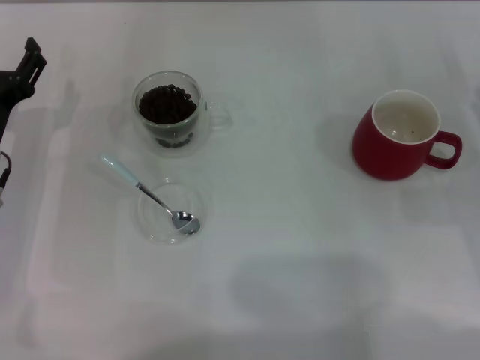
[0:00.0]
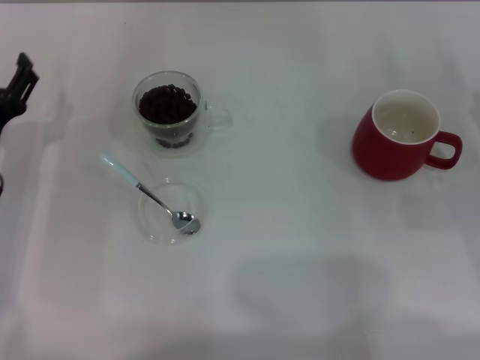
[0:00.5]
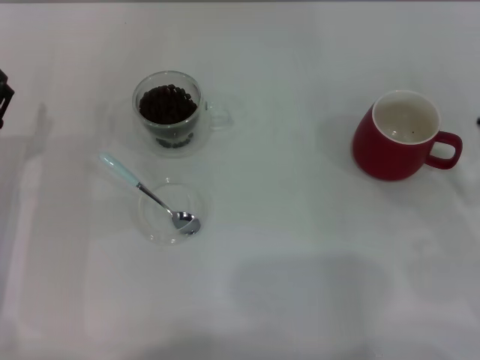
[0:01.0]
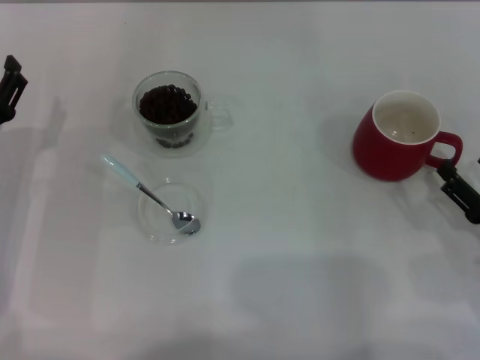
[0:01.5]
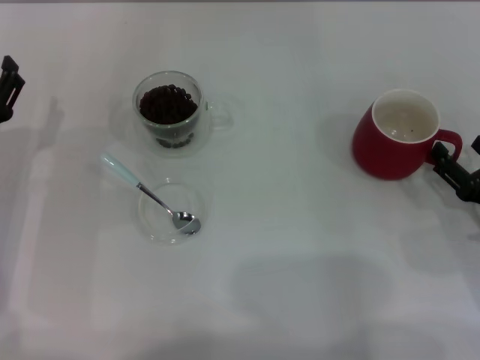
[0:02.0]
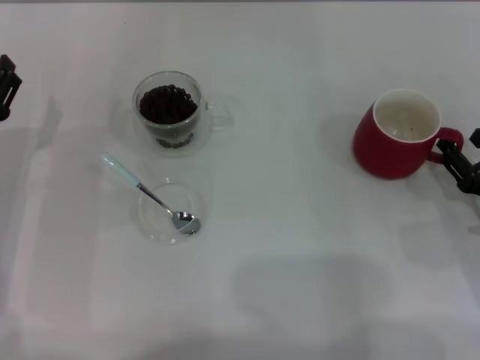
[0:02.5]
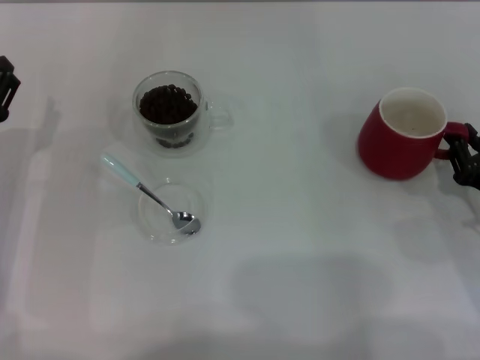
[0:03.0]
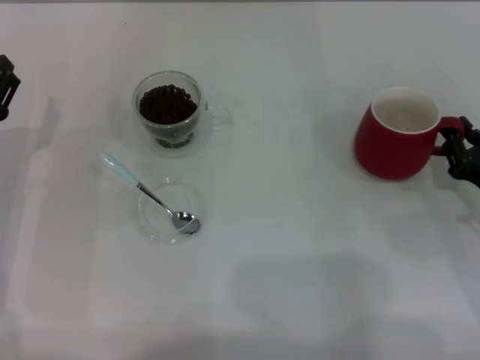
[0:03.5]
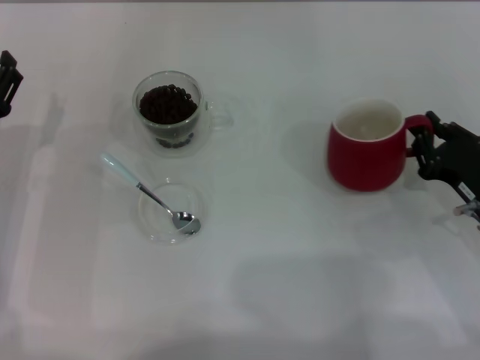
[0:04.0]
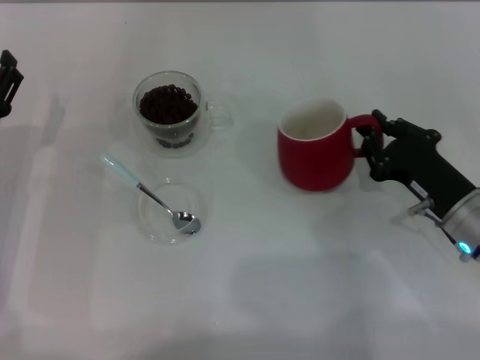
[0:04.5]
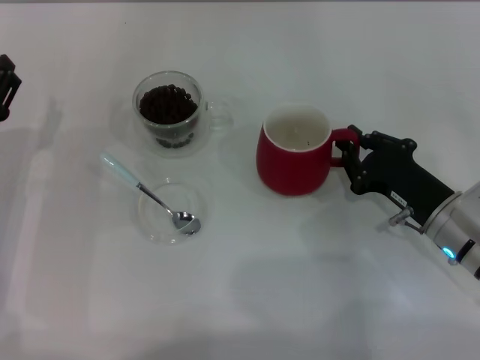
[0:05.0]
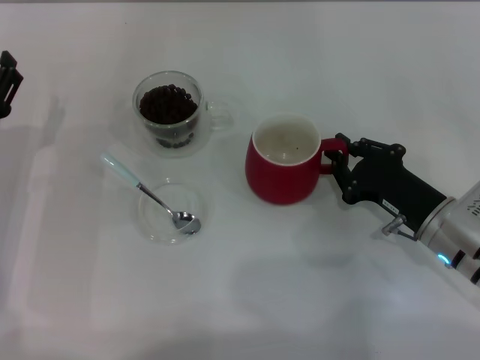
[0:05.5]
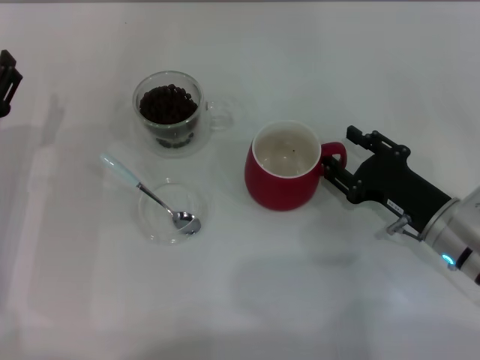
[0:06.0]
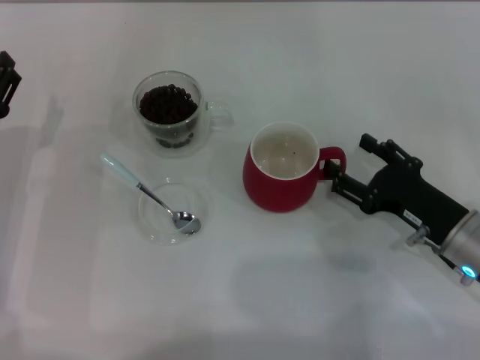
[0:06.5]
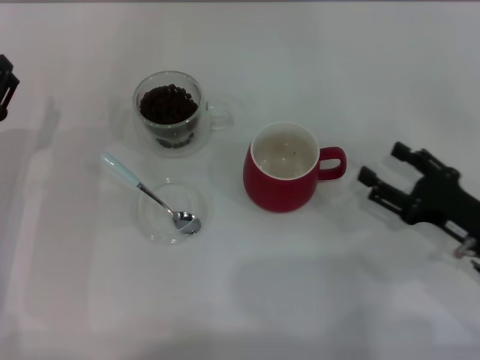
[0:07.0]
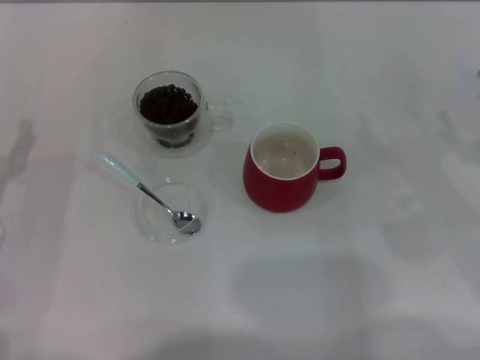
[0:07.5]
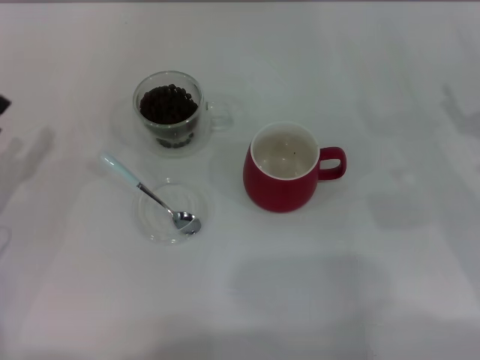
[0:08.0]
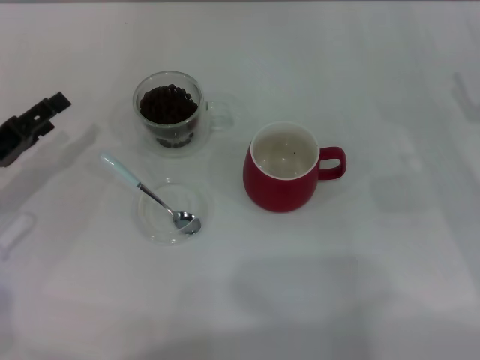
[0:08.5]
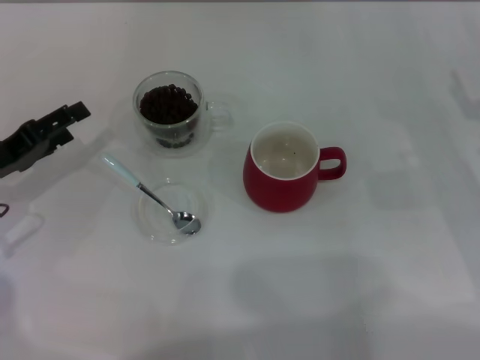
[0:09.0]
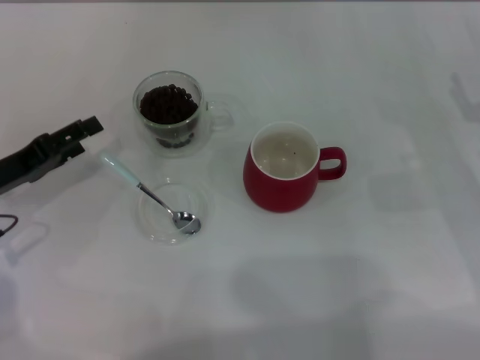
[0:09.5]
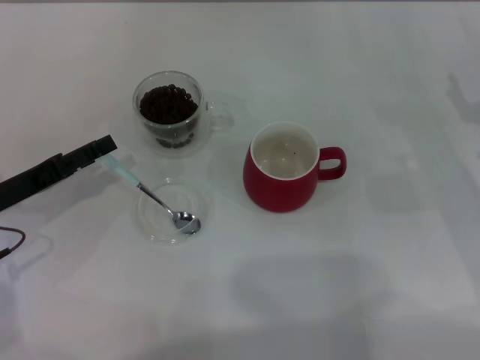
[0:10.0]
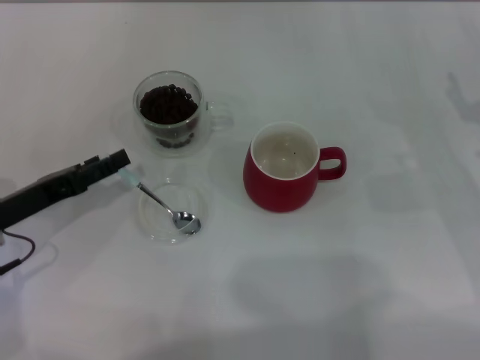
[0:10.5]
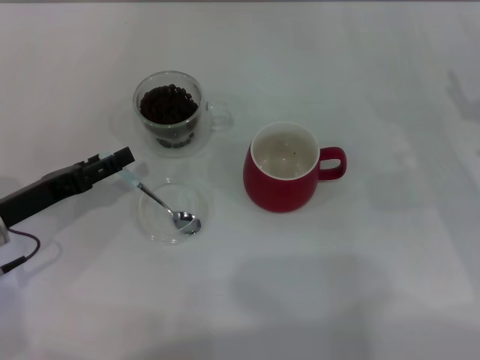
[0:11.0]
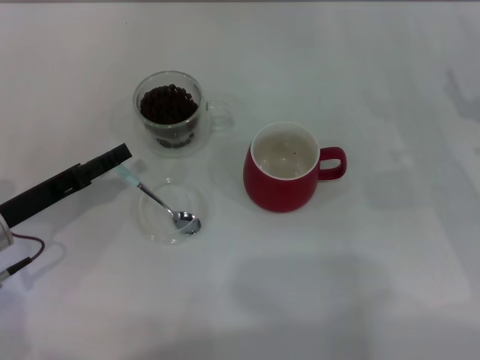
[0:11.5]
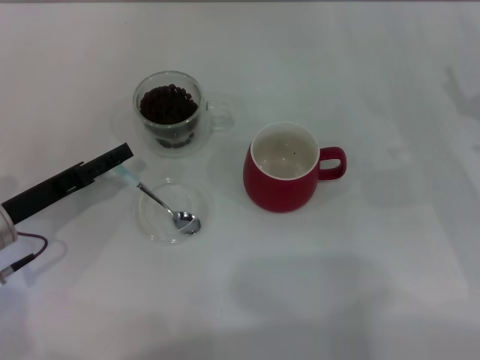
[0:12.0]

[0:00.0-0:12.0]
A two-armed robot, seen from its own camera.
Task of the whole recording: Use a blue spoon to take out the coffee beans from the glass and pour them into the red cup.
Step, 0.0 to 6.5 s: Move the cup to the center of view with the left gripper.
0.0 to 2.0 s: The right gripper goes approximately 5 cm backward.
2.0 to 4.0 s: The right gripper closes.
4.0 to 6.0 s: The right gripper moves to the left, about 5 cm, and opens its fingers.
6.0 to 8.0 s: The right gripper is displaced to the right by about 10 cm, and opens. Meanwhile the left gripper travels to the left by roughly 5 cm.
10.0 to 12.0 s: There are only small adjustments of the grippers.

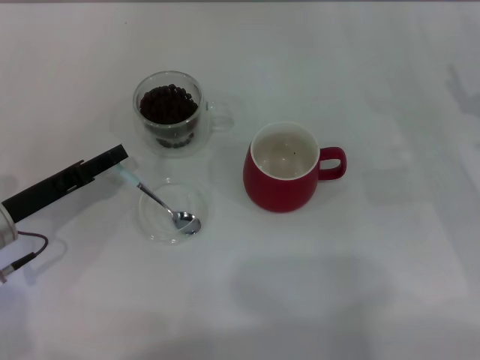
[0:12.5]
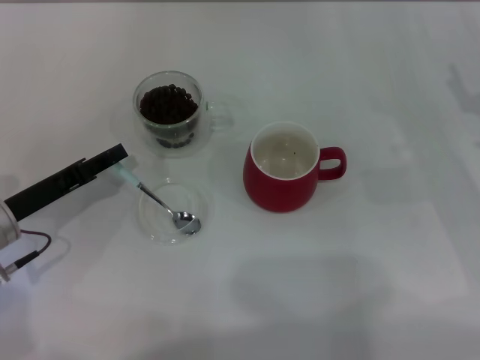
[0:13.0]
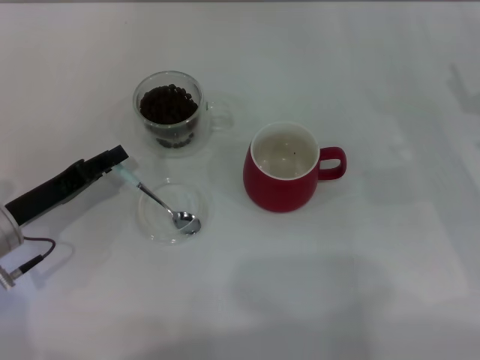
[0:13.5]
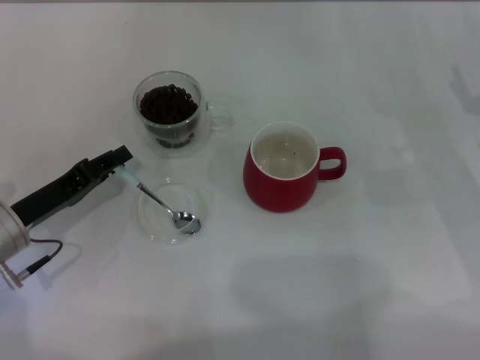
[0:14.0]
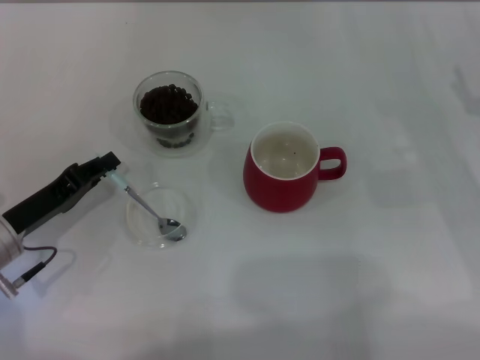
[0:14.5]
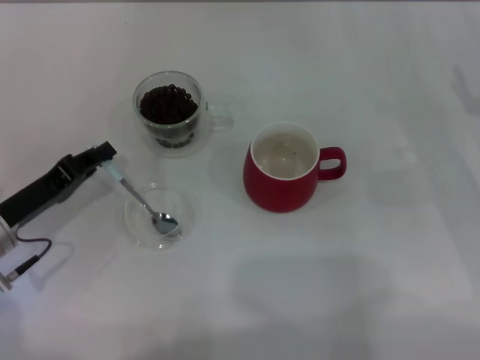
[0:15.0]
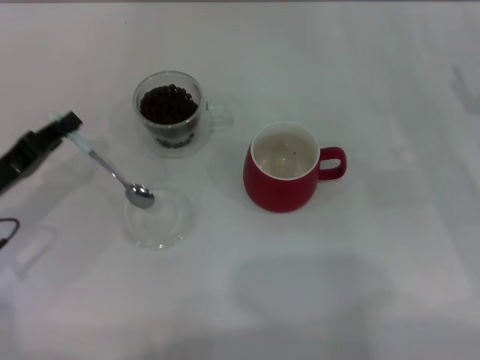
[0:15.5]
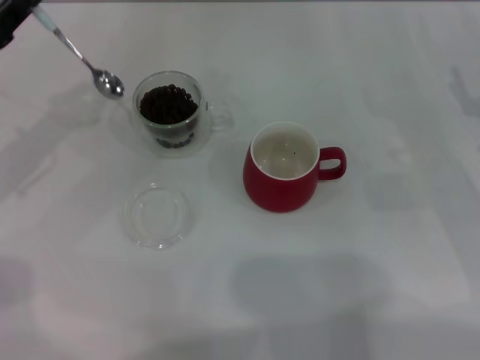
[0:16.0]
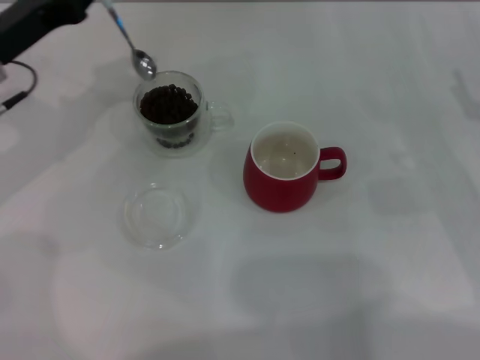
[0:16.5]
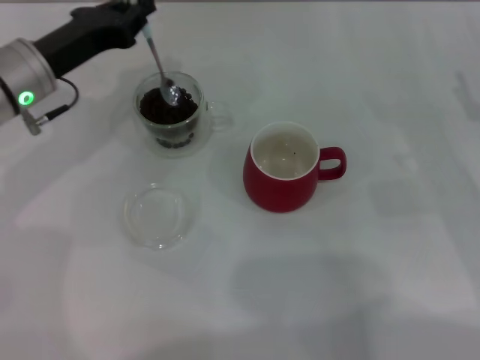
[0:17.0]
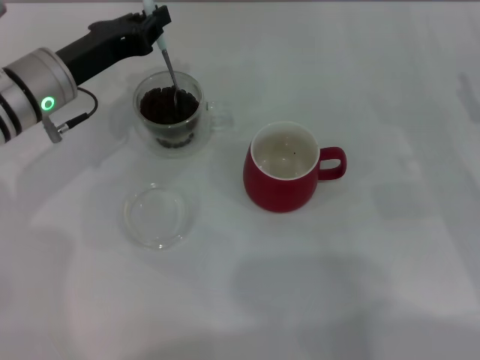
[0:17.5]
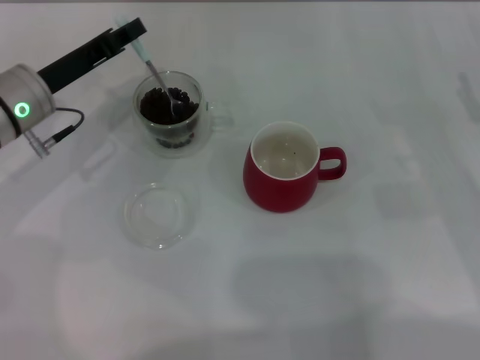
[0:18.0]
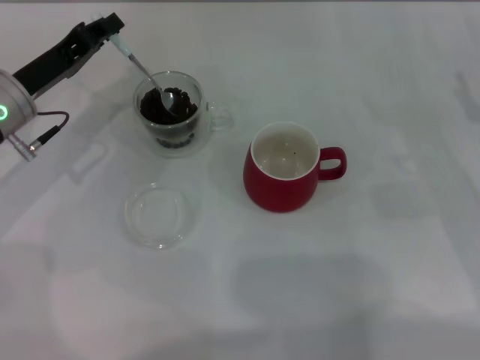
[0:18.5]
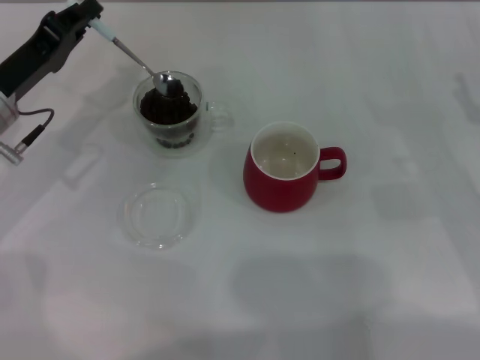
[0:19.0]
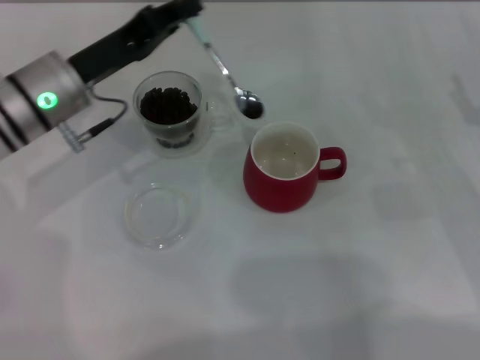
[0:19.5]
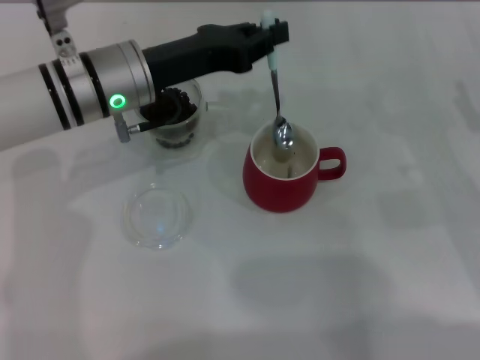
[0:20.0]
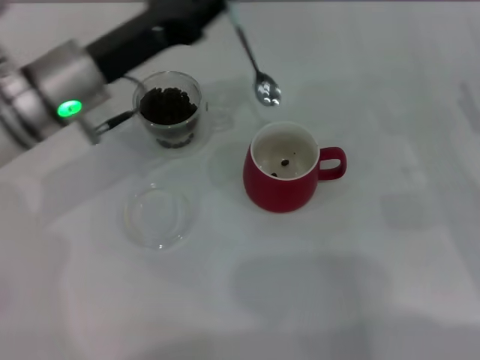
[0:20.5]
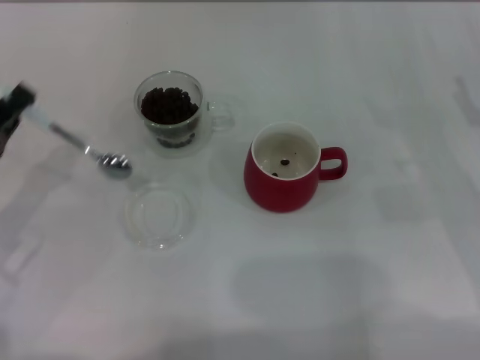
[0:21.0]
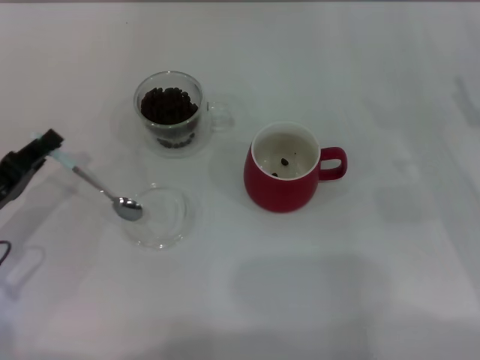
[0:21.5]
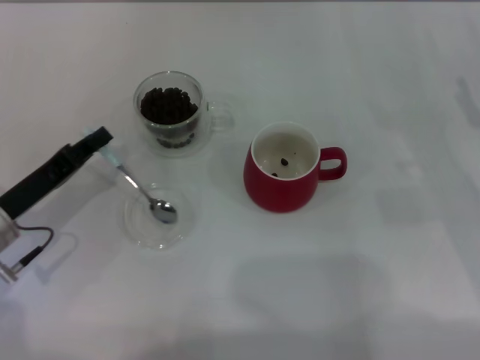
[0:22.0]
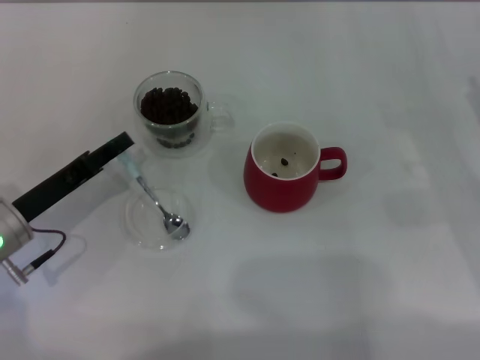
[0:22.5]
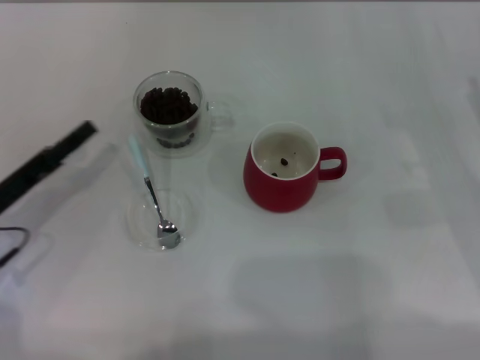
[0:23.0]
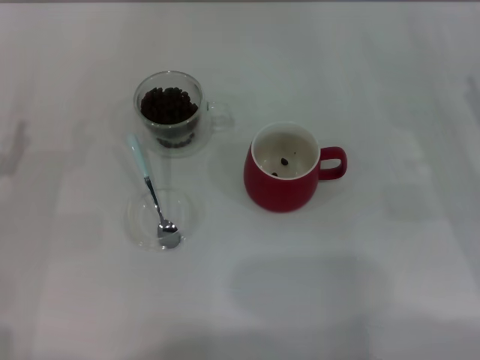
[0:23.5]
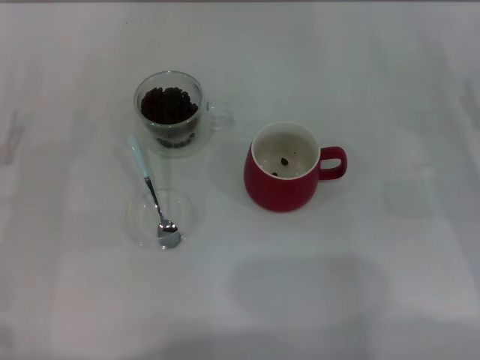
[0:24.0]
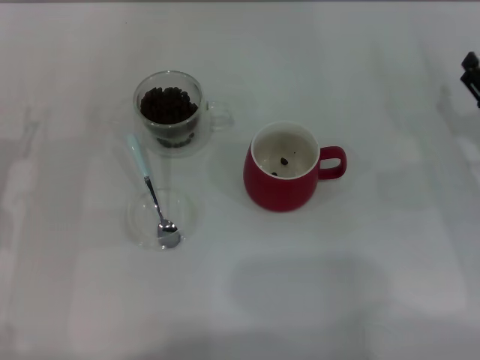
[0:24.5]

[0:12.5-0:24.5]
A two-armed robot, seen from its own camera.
Task of the whole recording: Use a blue spoon to take out the coffee beans from the glass and pour them into the red cup.
Step, 12.5 to 15.0 s: Pick up the spoon with the right gripper.
12.5 to 14.5 s: The left gripper closes.
14.5 to 16.5 s: The left gripper goes some 15 cm forward and upward.
18.5 to 20.5 s: The left gripper travels to the right by roughly 5 cm.
20.5 to 22.5 s: The left gripper travels downward, to the left and backward by about 15 cm.
22.5 to 24.5 s: The left gripper opens.

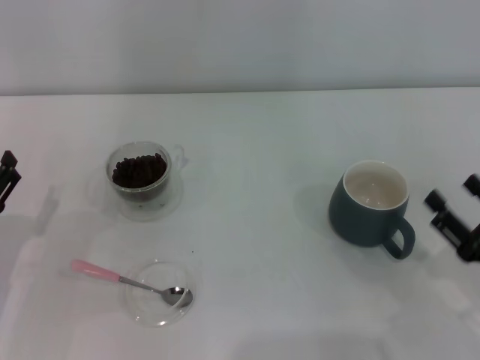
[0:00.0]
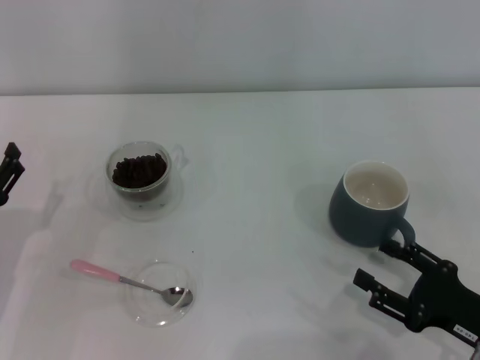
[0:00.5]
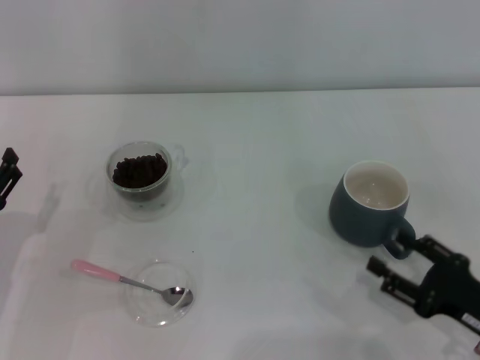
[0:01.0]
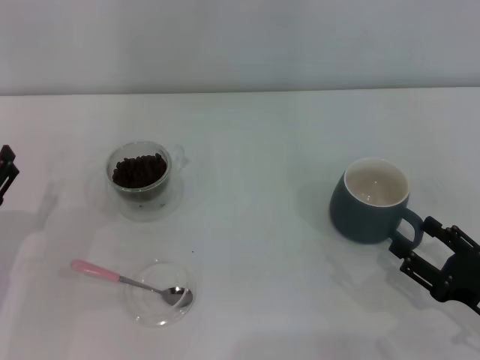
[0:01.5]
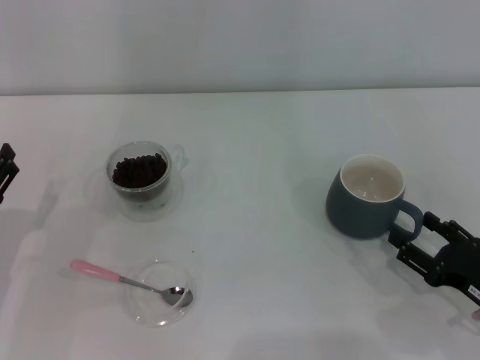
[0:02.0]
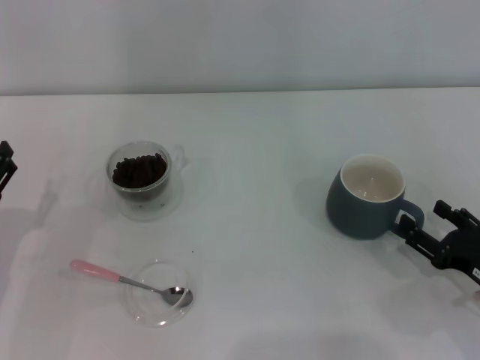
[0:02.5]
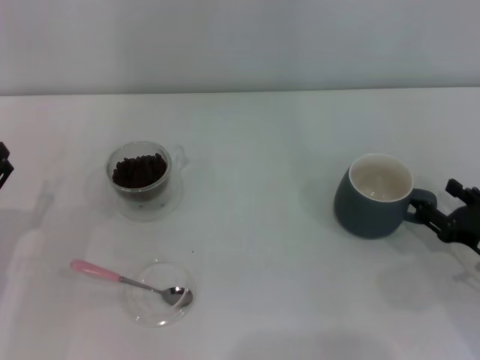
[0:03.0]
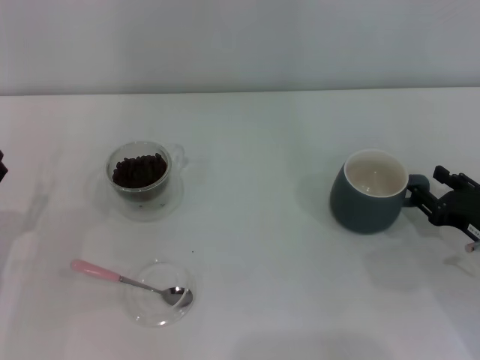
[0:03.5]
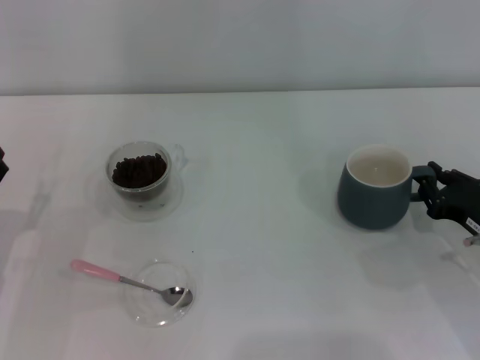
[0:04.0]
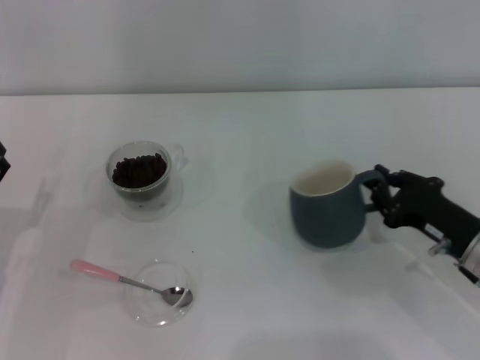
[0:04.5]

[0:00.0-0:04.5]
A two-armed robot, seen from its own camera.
Task of the whole recording: Use a pink spoon to take out the coffee beans from the glass and pour them into the gray cup.
2.0 to 4.5 s: The right gripper heads forward, covering roughly 5 cm, and closes its fingers.
